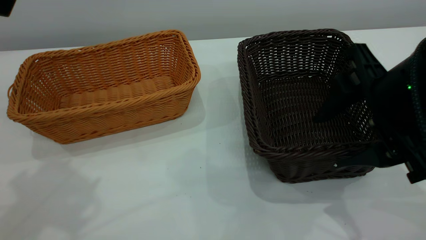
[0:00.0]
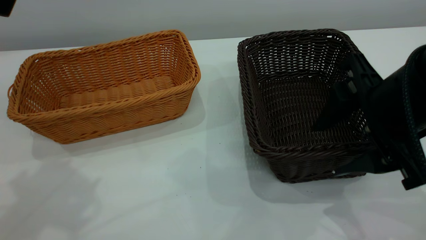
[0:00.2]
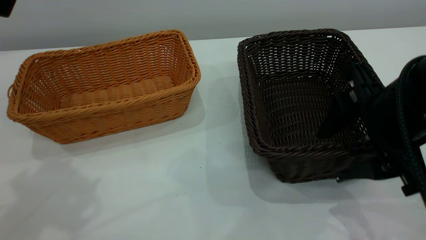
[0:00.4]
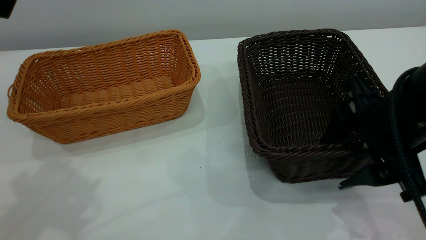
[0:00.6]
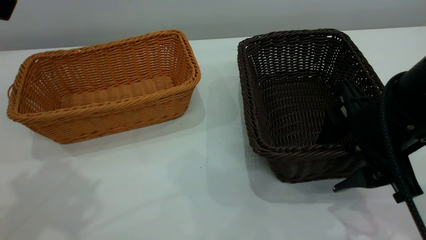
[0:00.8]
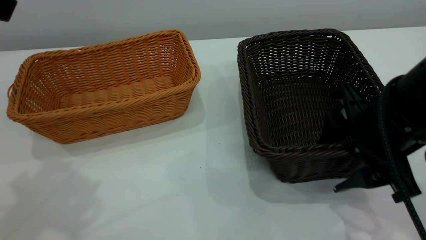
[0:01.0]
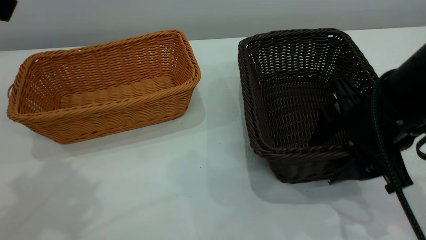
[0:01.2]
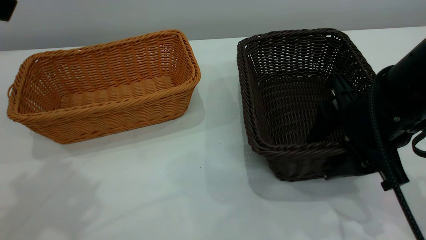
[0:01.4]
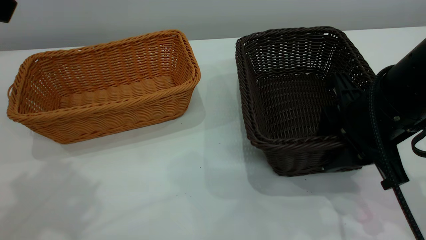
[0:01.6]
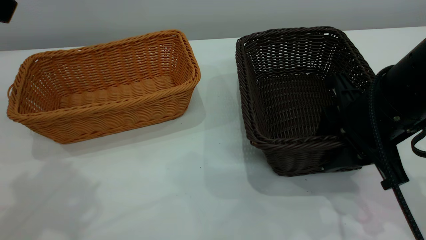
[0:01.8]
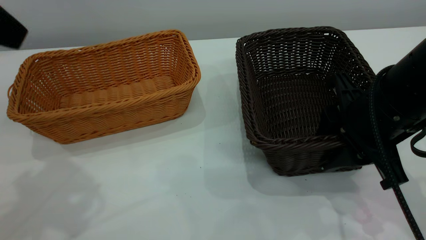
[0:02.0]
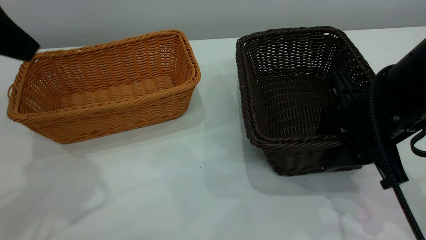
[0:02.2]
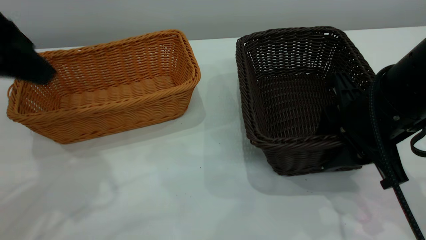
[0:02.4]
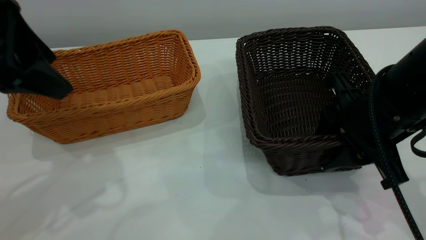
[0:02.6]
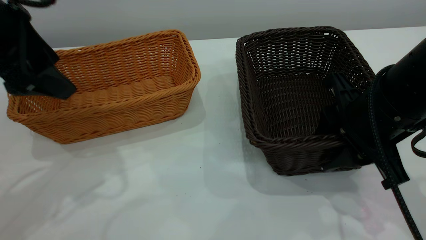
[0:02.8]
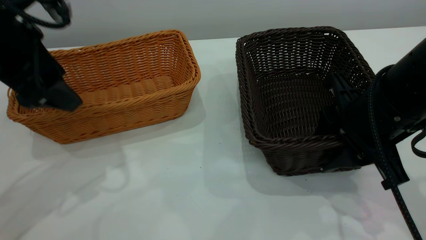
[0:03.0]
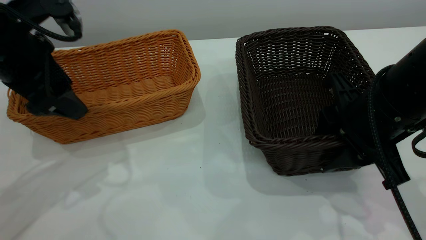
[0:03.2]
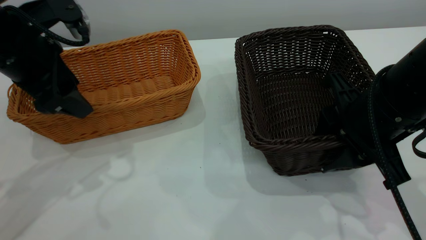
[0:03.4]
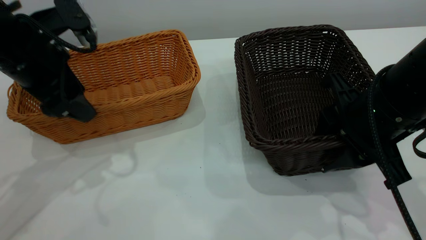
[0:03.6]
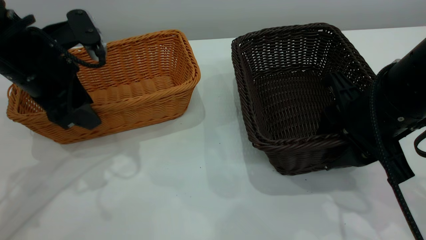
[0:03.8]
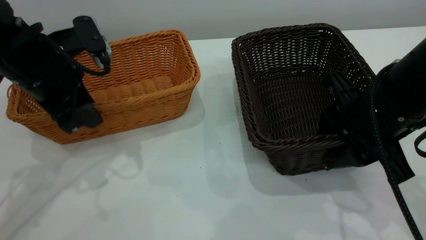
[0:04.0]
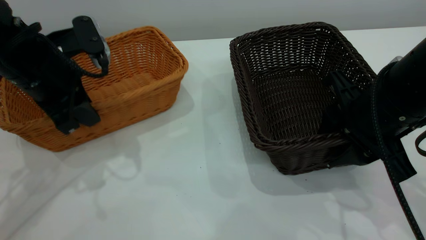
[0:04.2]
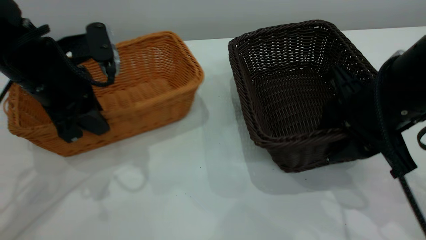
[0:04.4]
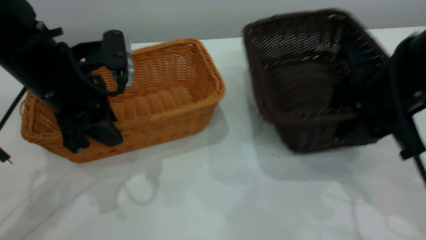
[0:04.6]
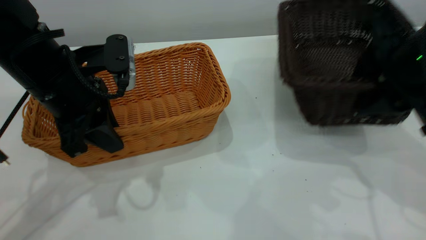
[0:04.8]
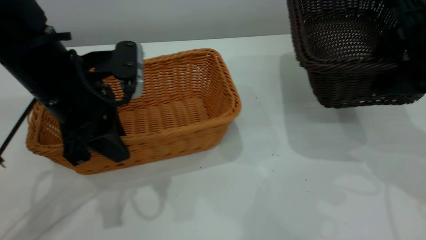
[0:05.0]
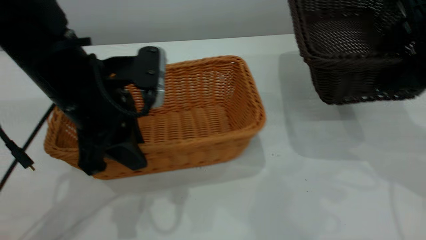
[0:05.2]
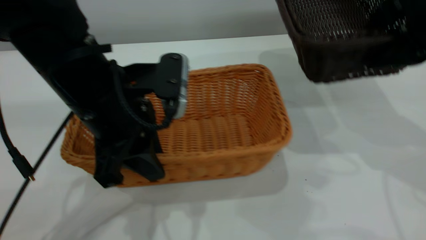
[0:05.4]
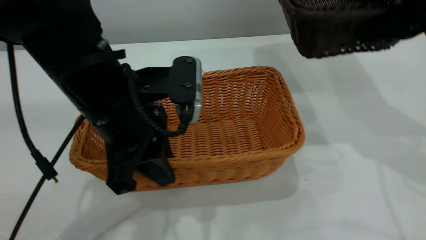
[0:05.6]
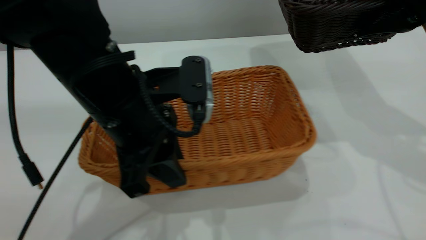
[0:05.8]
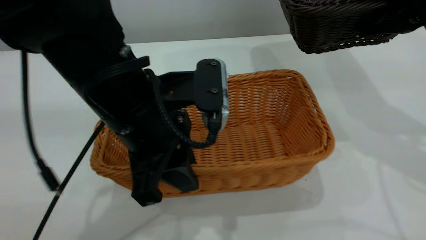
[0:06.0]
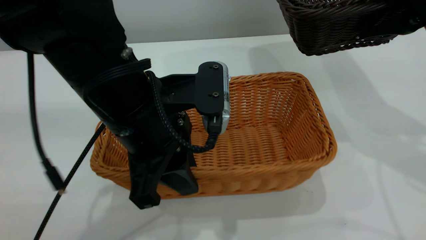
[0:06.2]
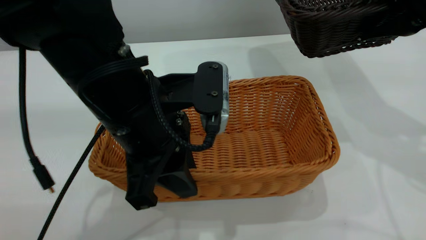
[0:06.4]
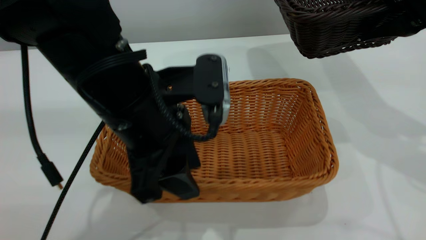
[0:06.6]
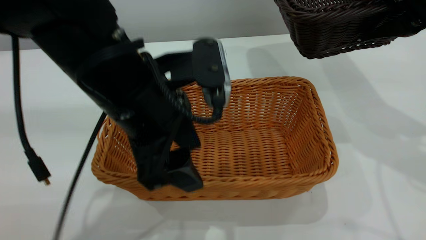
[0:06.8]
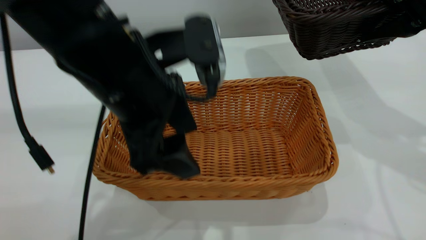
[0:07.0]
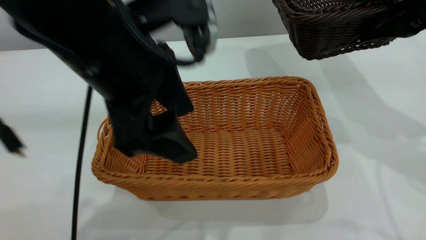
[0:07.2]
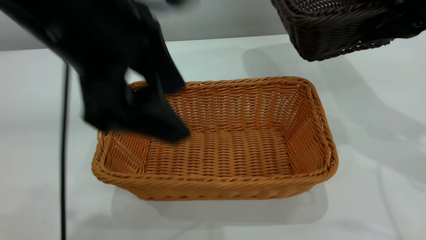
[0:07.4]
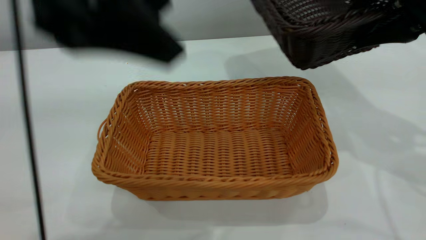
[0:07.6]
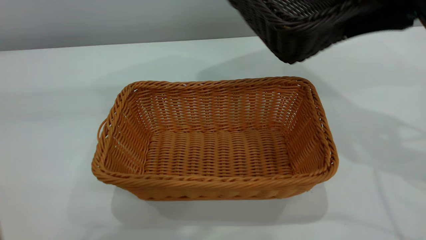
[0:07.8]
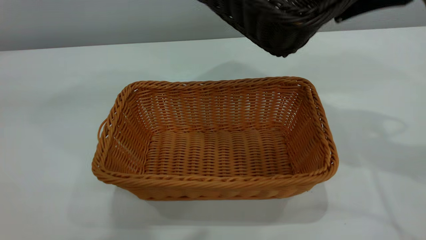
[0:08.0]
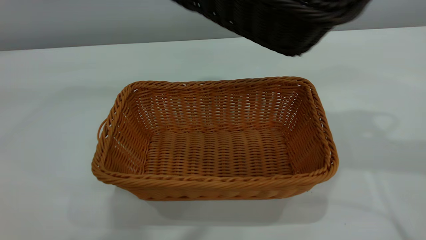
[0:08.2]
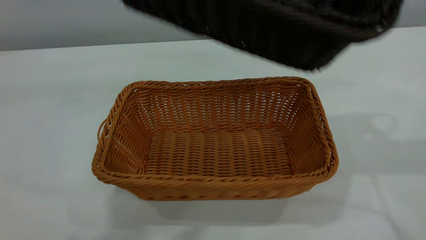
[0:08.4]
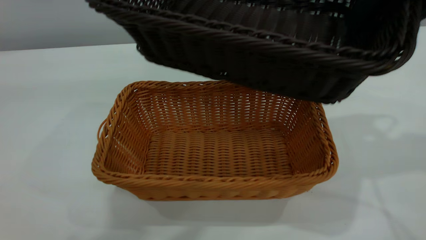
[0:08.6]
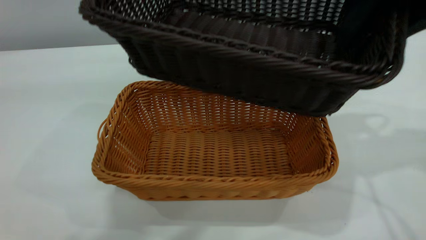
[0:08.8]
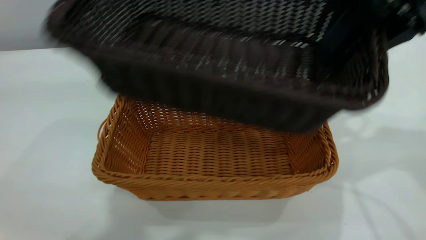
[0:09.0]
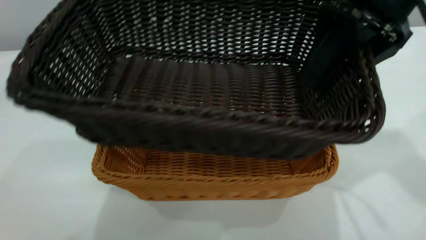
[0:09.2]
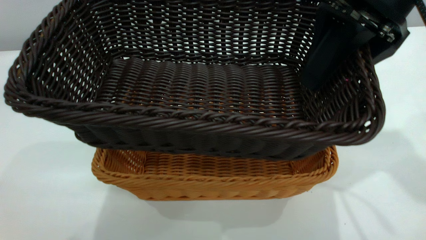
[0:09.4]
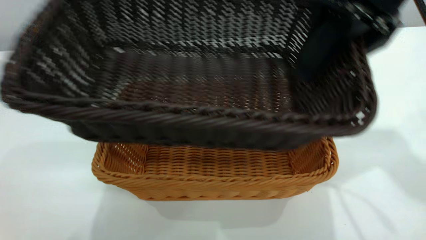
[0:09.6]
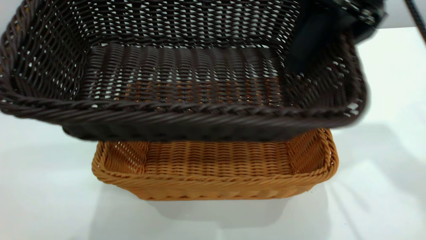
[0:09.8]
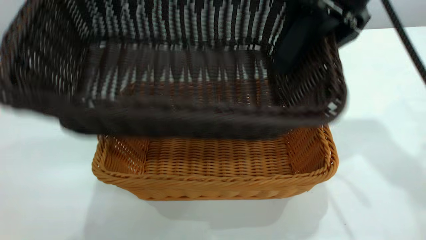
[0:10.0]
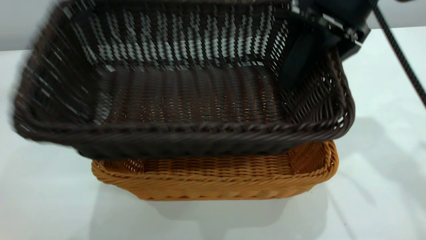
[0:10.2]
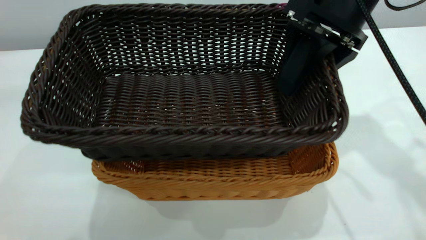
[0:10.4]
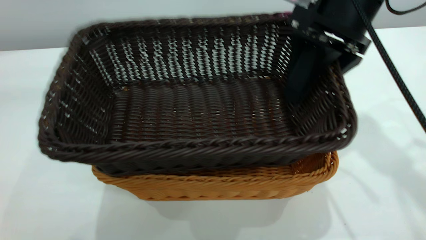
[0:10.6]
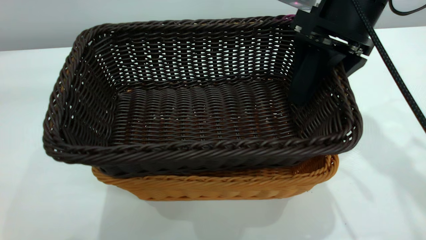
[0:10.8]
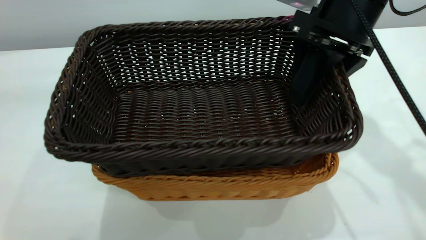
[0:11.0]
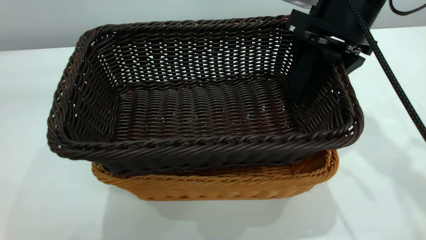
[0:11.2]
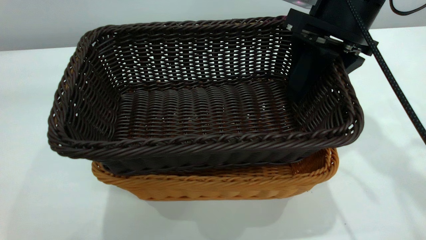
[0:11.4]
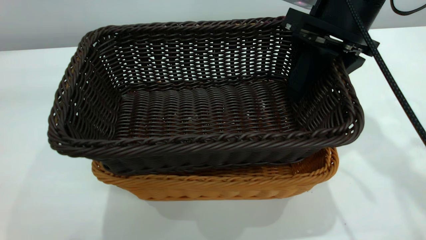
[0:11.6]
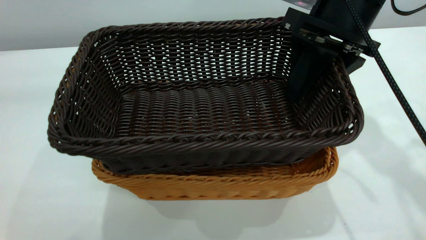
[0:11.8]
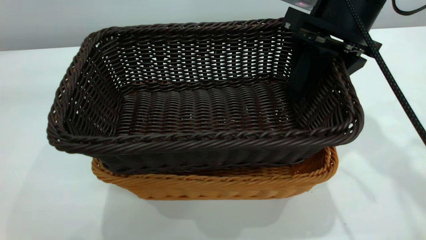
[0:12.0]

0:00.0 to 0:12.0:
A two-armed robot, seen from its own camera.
Task of the whole recording: the left gripper grasp the brown basket and place it in the center of the table, the right gripper grasp the black basket and place it inside the brown one.
Step, 0:00.0 to 0:04.8: Pick up the light basket with the right gripper.
Step, 0:05.0 to 0:07.2: Place the light-colored basket in the center.
0:00.0 to 0:01.6: The right gripper moves roughly 5 cm, and closes its fingers.
0:01.6 to 0:03.0: The left gripper heads downward and forward, covering some 15 cm.
0:03.0 to 0:04.4: The left gripper moves downward, approximately 5 cm, and closes.
0:04.4 to 0:06.0: The left gripper travels to the right and backward by about 15 cm. Meanwhile the right gripper travels upward, to the right and forward by roughly 15 cm.
0:06.0 to 0:07.6: The left gripper goes about 20 cm upward, and opens up.
0:07.6 to 0:09.0: The left gripper travels upward by about 15 cm.
0:09.0 to 0:10.4: The right gripper ends up some 5 cm from where it was.

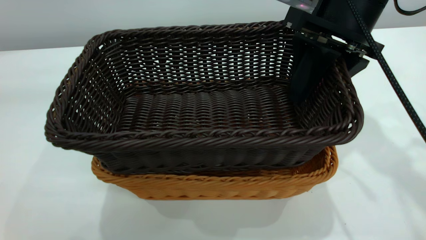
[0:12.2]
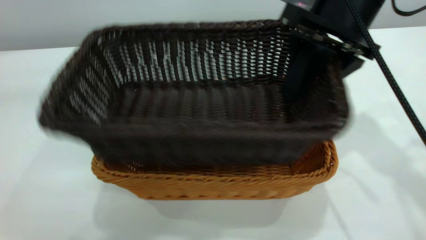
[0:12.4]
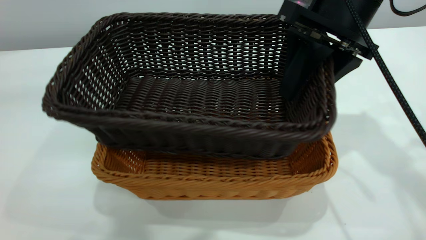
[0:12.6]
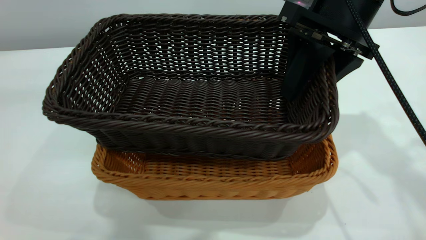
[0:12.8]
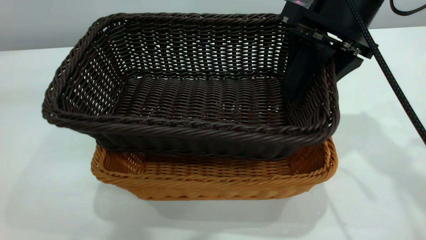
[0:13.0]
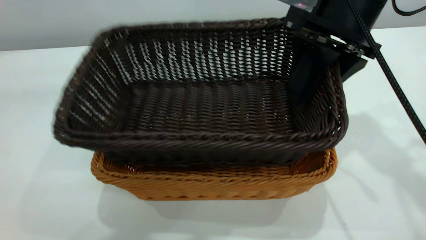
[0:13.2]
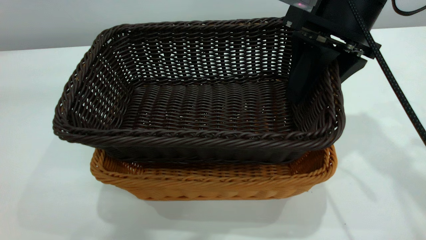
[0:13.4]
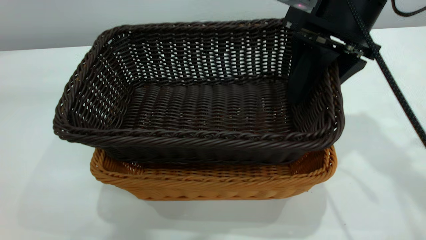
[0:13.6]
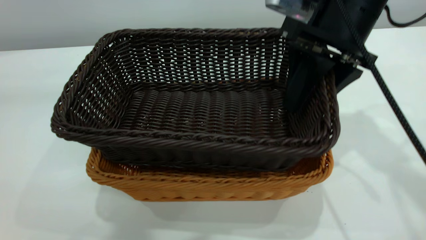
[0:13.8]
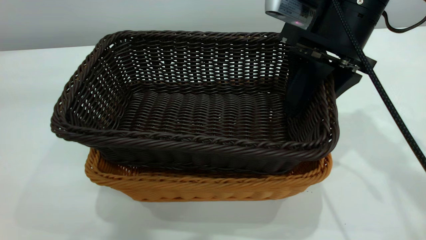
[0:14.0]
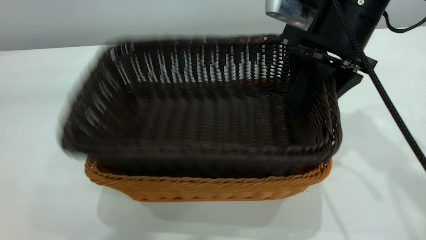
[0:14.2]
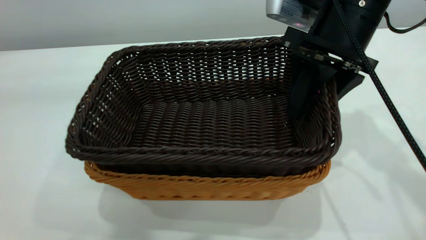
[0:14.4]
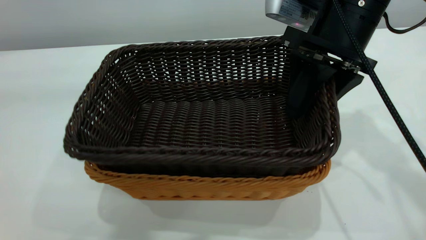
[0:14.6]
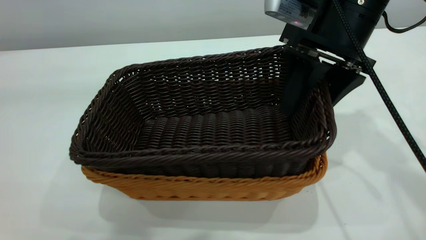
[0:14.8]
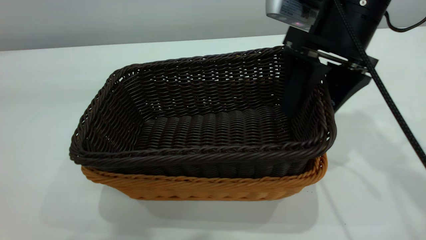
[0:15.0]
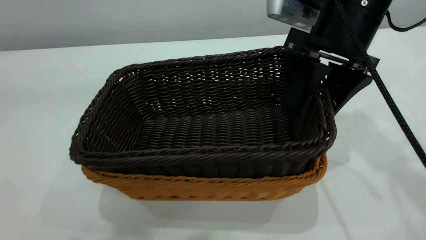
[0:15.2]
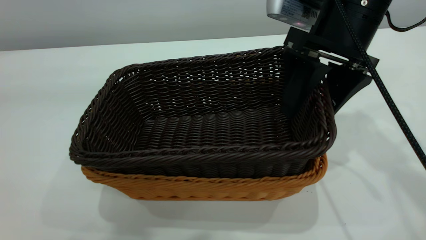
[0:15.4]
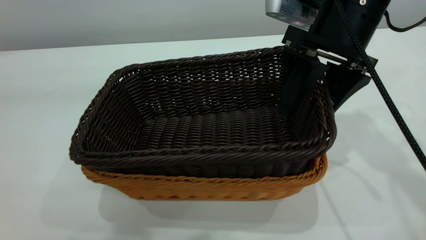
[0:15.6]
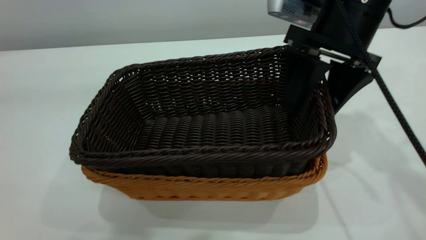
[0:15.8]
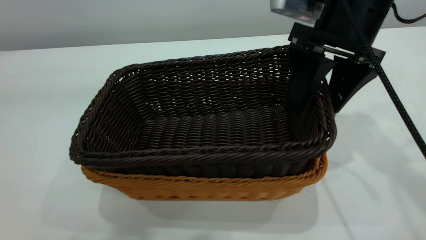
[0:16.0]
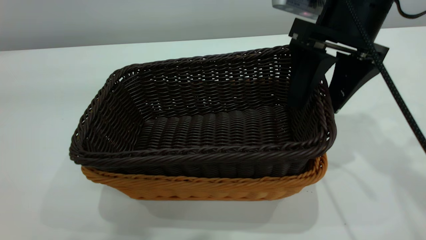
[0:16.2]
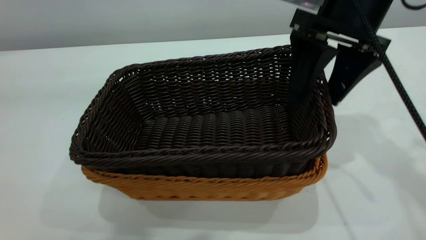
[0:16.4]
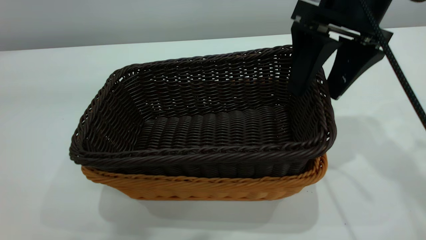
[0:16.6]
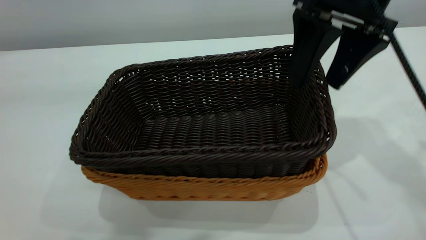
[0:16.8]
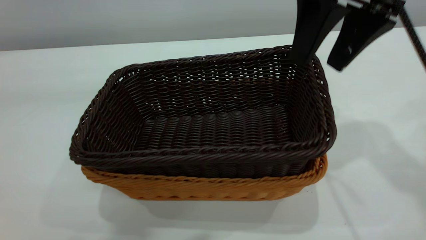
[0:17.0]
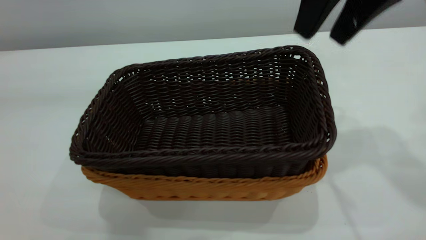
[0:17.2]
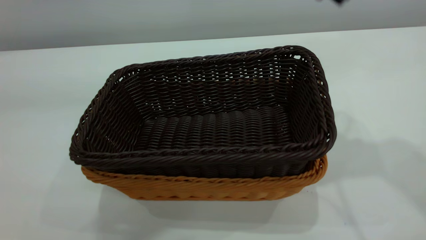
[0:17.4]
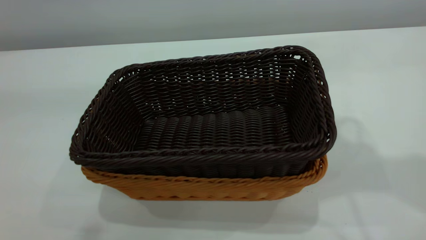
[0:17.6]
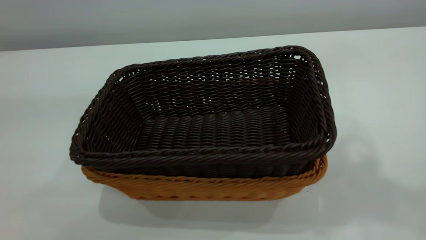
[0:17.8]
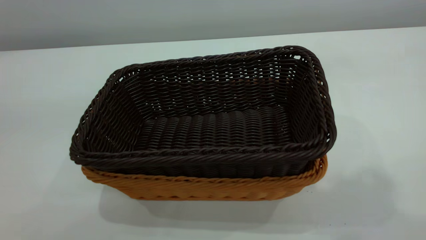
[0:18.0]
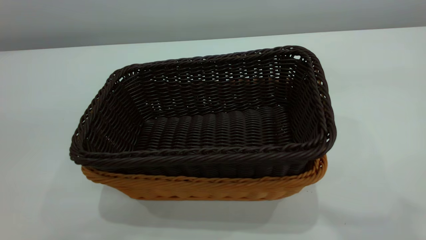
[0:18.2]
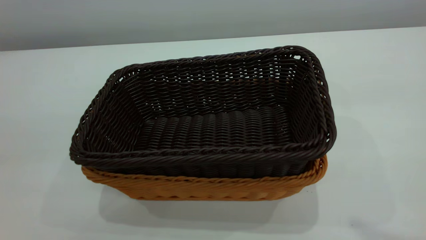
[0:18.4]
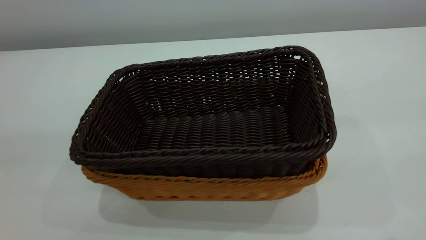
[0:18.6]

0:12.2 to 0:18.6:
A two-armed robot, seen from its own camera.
Task of the whole recording: the left gripper grasp the brown basket and place it in the center of the table, the right gripper grasp the black basket and place it inside the brown one.
Step, 0:12.2 to 0:17.0: Place the dark basket on top of the light basket.
0:12.2 to 0:13.8: The grippers move only a little.
0:13.8 to 0:15.4: The right gripper opens.
0:15.4 to 0:17.0: The right gripper moves upward, approximately 10 cm.
0:17.0 to 0:18.6: The right gripper is displaced backward and upward by approximately 30 cm, and closes up. The left gripper heads backward, to the left and downward, covering roughly 15 cm, and closes its fingers.
